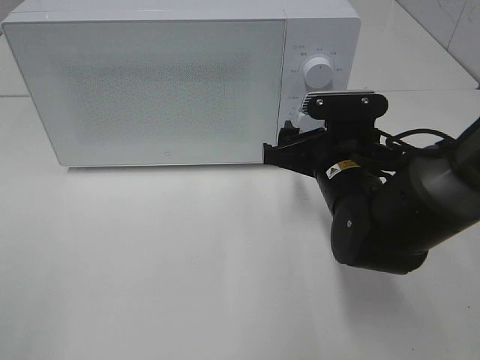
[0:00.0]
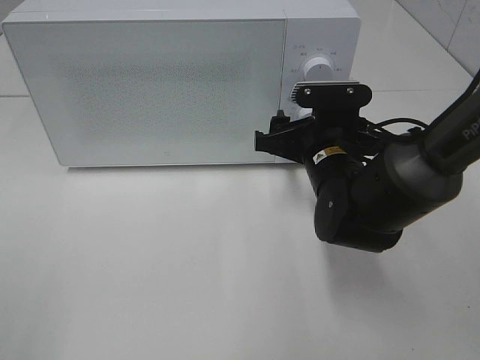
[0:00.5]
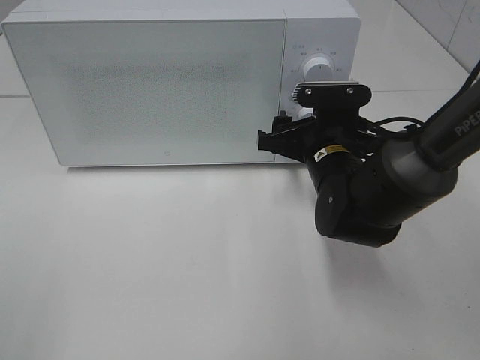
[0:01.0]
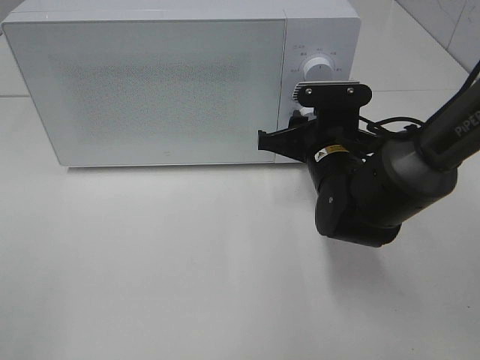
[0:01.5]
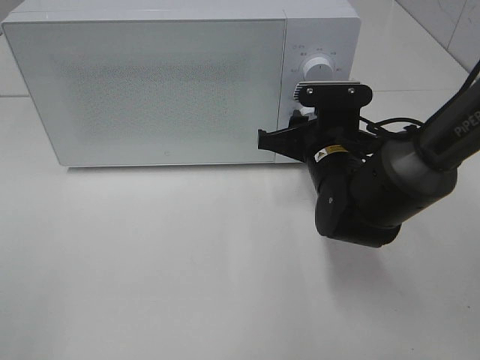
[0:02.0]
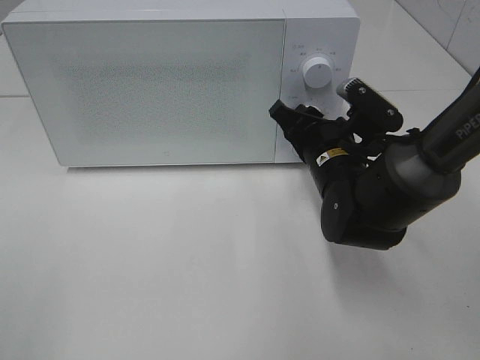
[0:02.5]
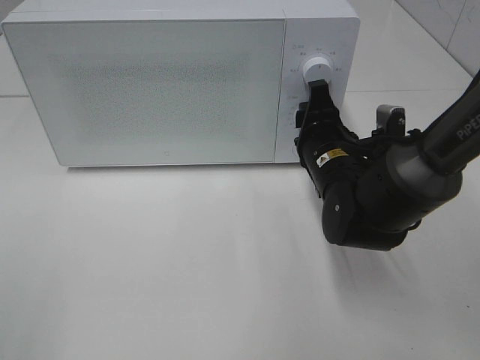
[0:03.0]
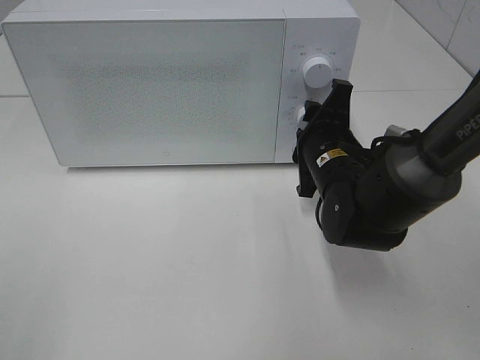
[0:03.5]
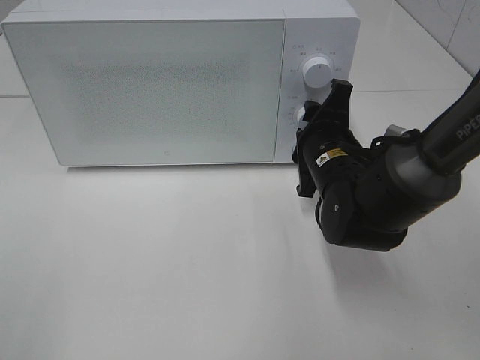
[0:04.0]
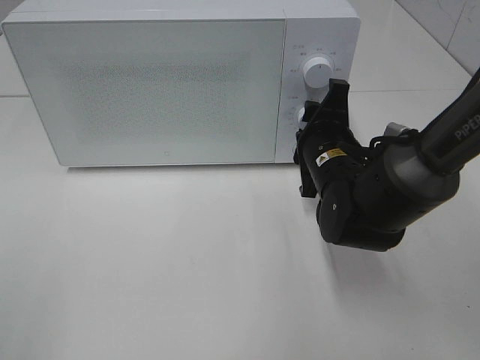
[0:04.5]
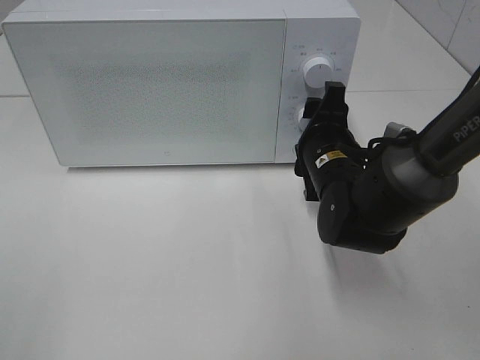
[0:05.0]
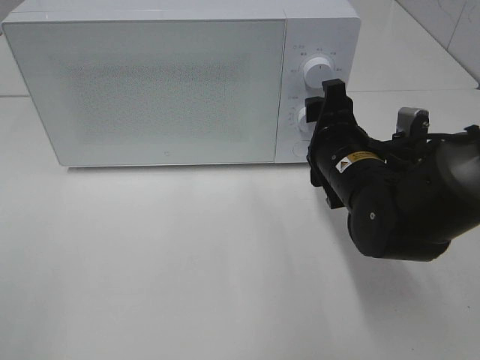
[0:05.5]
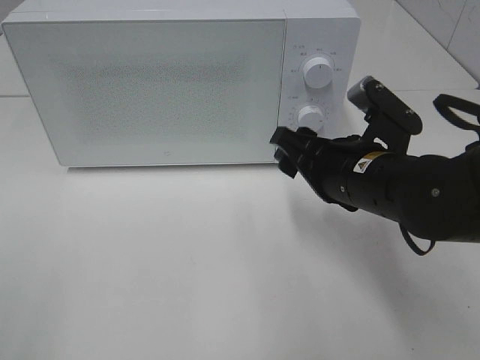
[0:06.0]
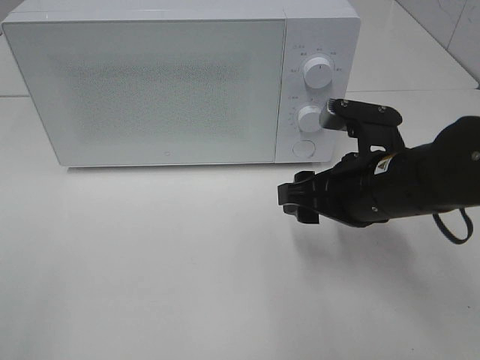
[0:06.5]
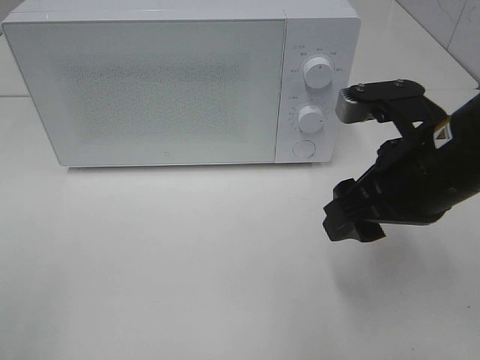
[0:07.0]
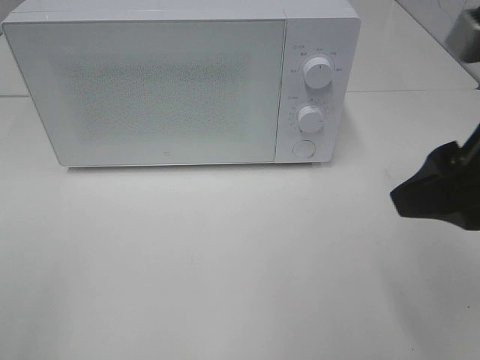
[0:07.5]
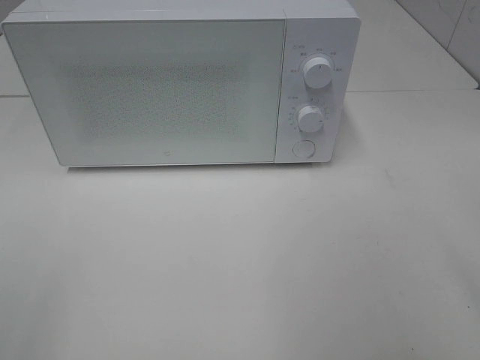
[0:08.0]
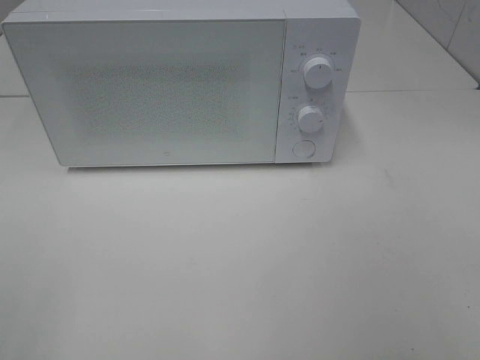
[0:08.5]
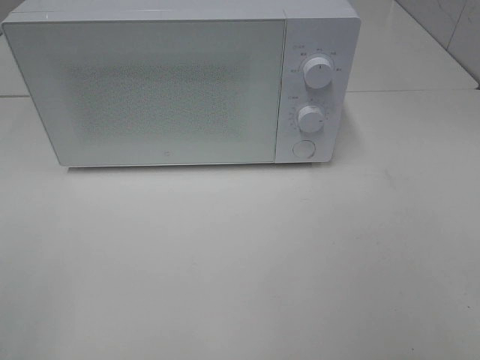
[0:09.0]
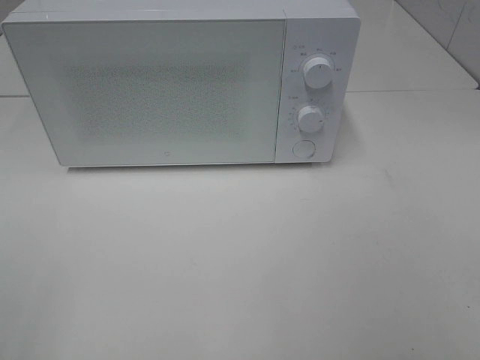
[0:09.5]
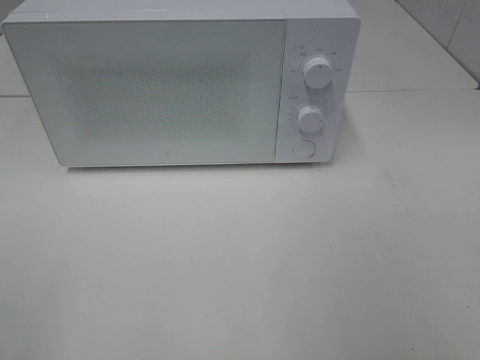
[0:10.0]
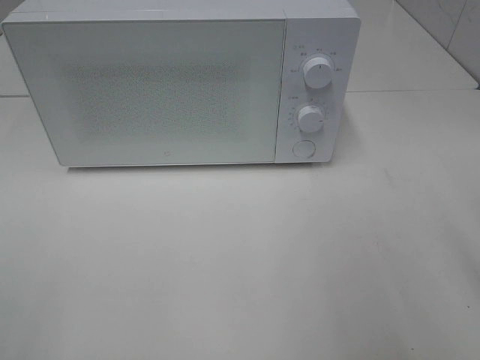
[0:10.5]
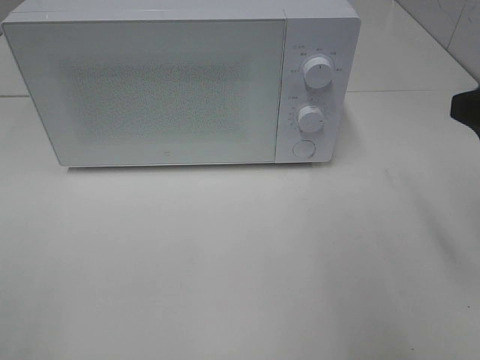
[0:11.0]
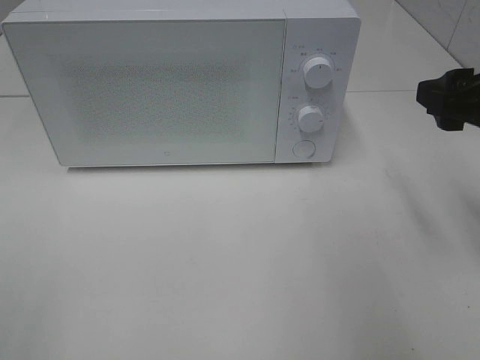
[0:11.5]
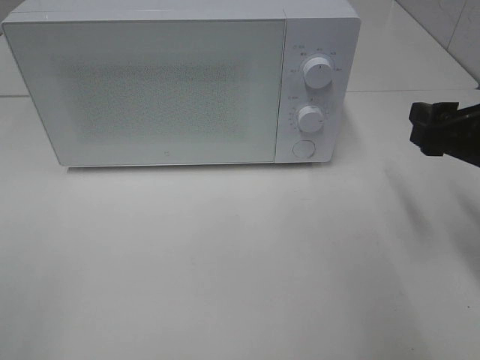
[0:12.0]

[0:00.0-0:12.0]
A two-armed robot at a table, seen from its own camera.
Task of the whole recording: Heat the burger.
Step, 0:00.0 to 0:04.5: Right hand: twist timer button.
0:00.0 to 0:02.0: The right gripper closes.
0:04.0 to 0:06.0: The right gripper shifts approximately 5 cm backward.
0:06.0 to 0:08.0: The right gripper is displaced upward, backward and to the right by some 30 cm.
0:10.0 to 0:12.0: The right gripper is displaced forward and downward by approximately 20 cm.

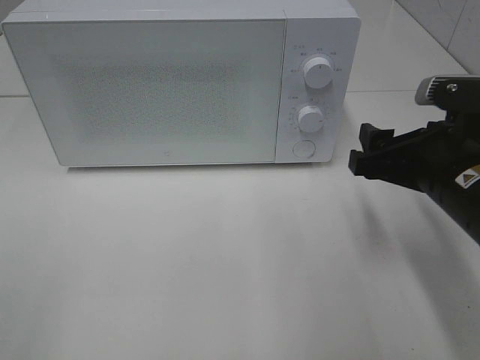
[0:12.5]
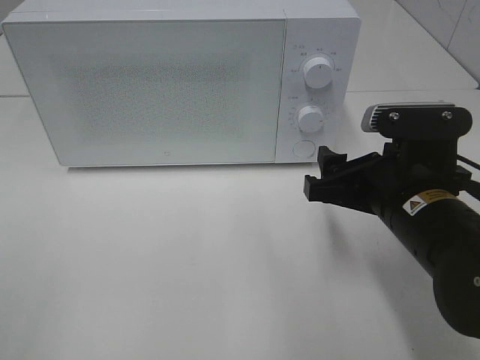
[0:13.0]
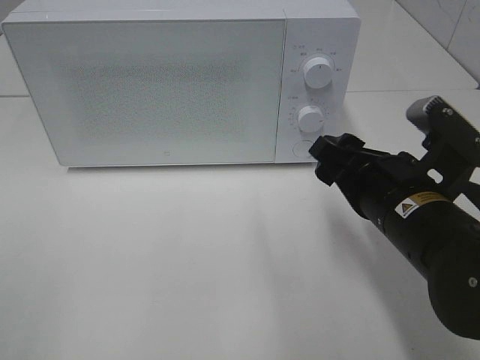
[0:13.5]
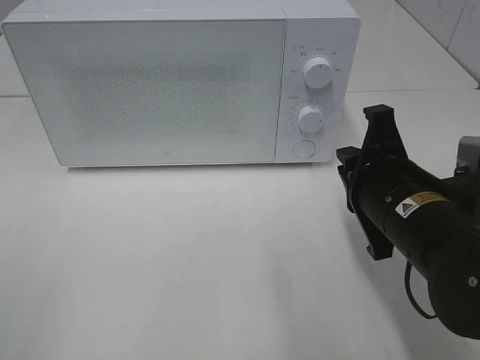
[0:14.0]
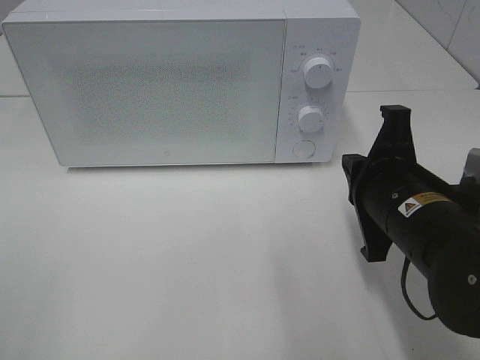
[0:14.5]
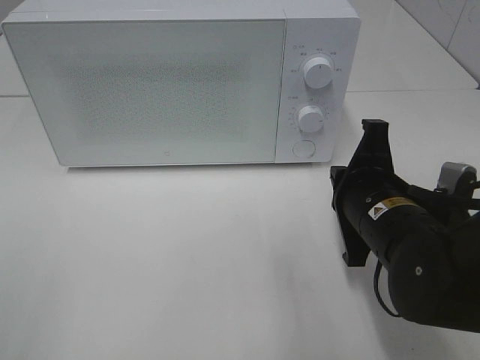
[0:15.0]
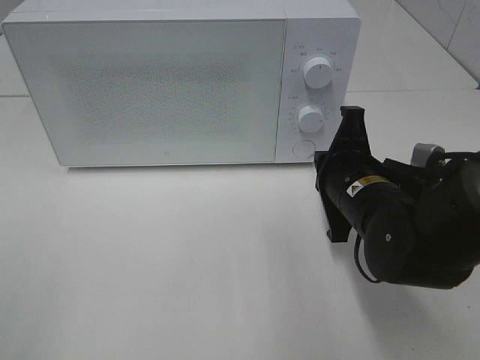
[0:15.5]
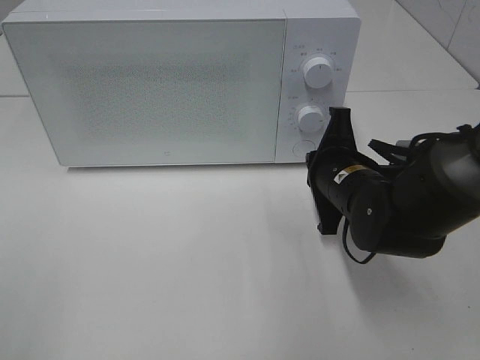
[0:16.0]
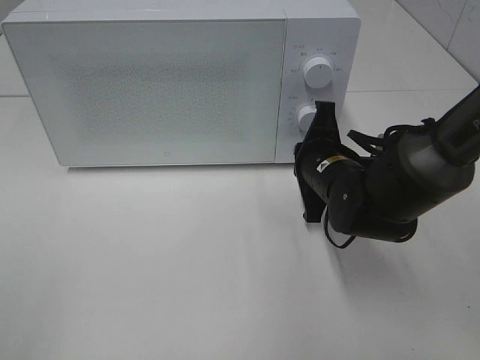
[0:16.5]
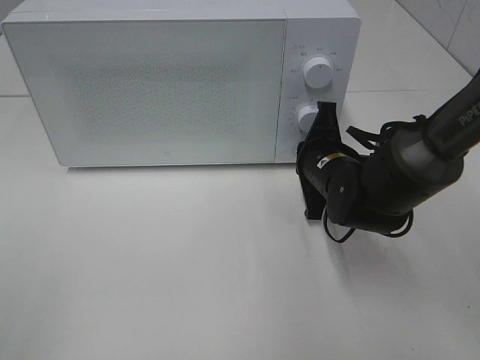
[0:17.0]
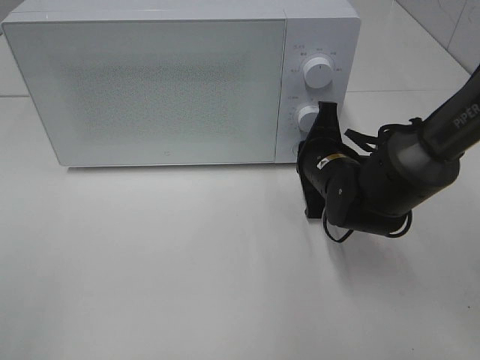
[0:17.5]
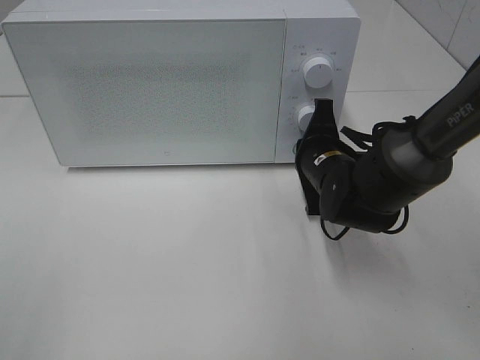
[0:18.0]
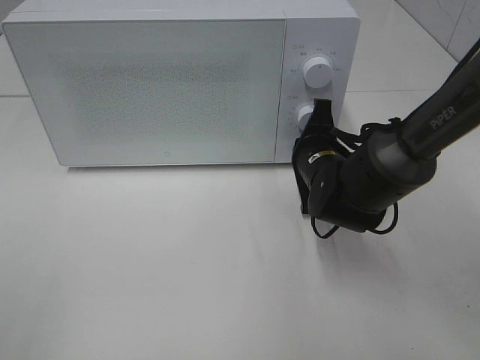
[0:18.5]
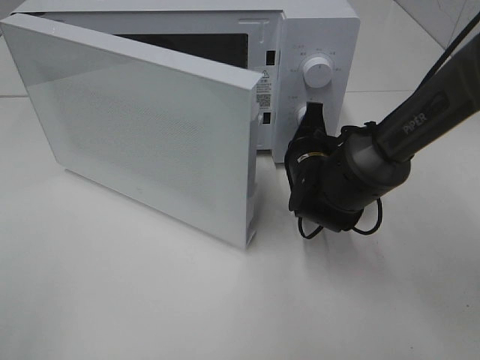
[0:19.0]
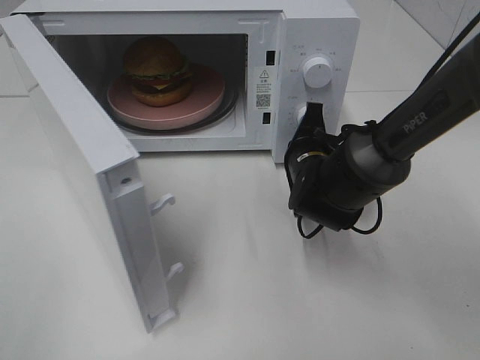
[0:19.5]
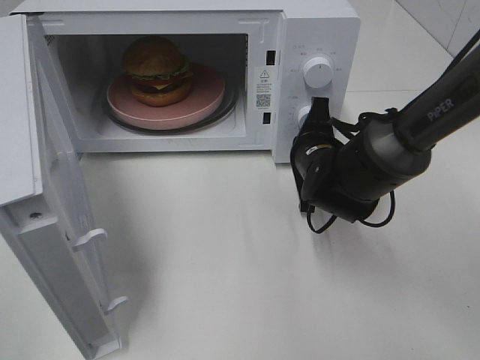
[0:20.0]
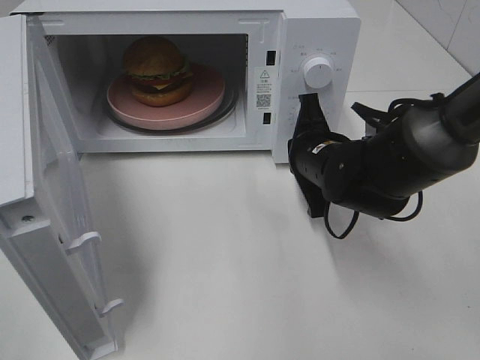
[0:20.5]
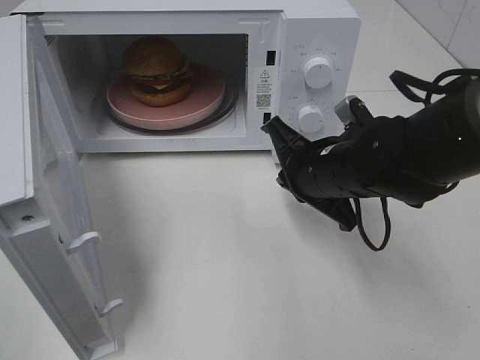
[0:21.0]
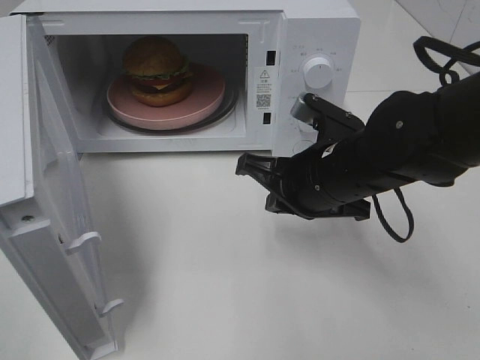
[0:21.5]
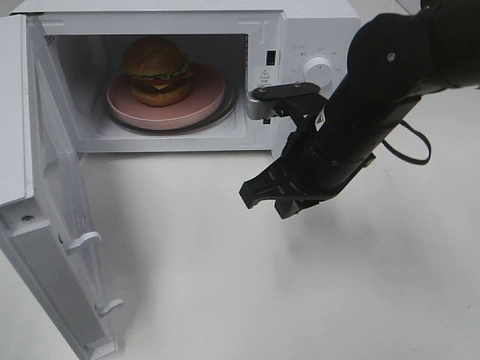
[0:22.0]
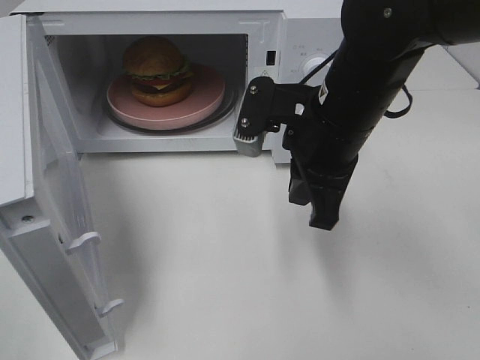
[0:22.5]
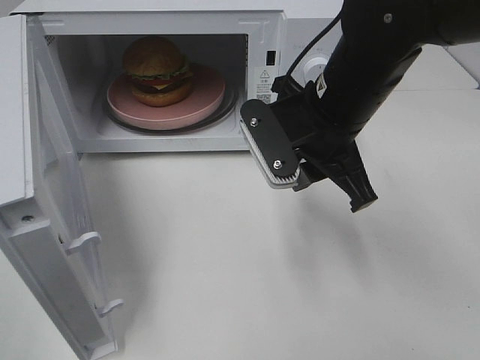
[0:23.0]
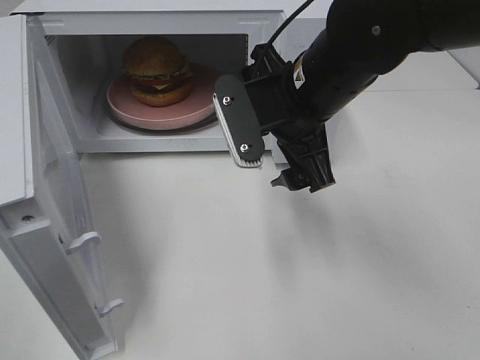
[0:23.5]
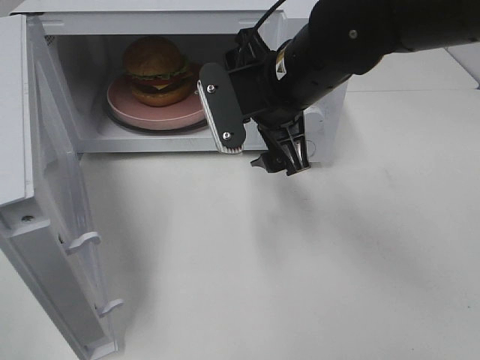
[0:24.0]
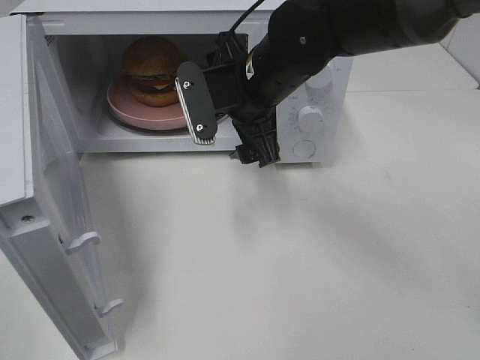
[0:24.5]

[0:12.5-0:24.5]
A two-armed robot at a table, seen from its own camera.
Task of the whole recording: Heat the burger.
Step, 0:12.5 to 0:20.0: Right hand: press the switch.
0:12.5 to 0:14.5: The right gripper changes place by approximately 5 cm, and closes up.
0:14.5 to 0:16.5: The right gripper travels forward and downward by about 15 cm.
0:16.5 to 0:18.5: There are only small adjustments of the grippers.
0:20.5 to 0:22.5: The right gripper shifts some 10 cm upward.
0:22.5 to 0:24.5: The right gripper is displaced forward and to the left by some 10 cm, and opens its fingers.

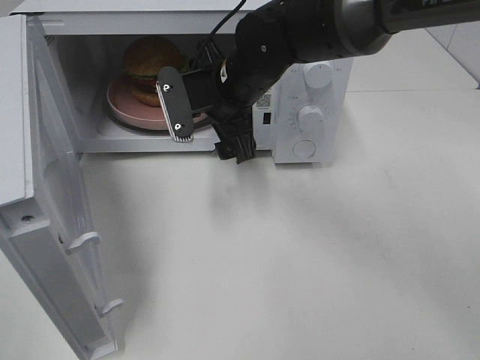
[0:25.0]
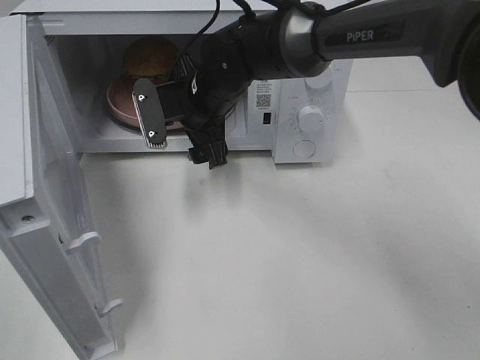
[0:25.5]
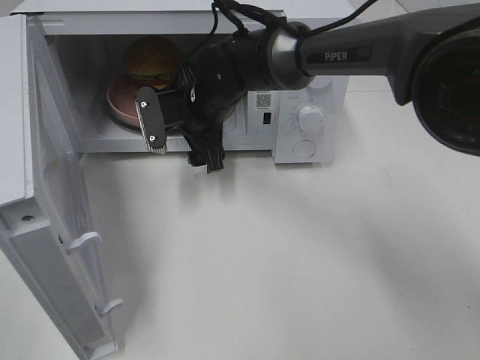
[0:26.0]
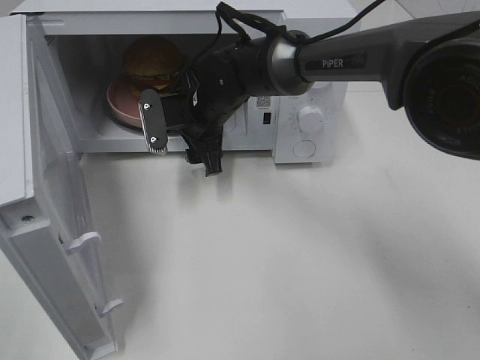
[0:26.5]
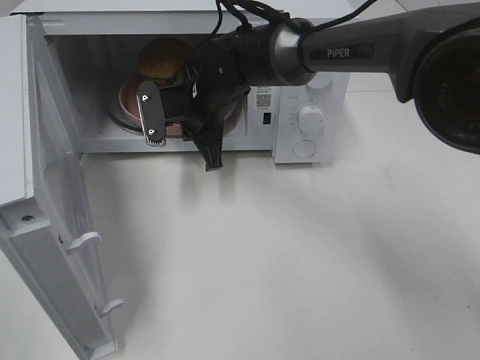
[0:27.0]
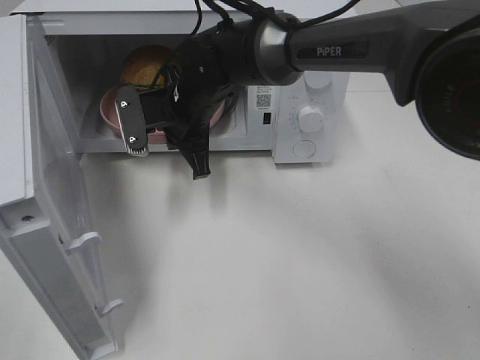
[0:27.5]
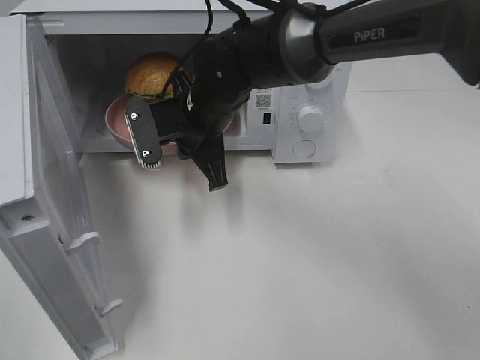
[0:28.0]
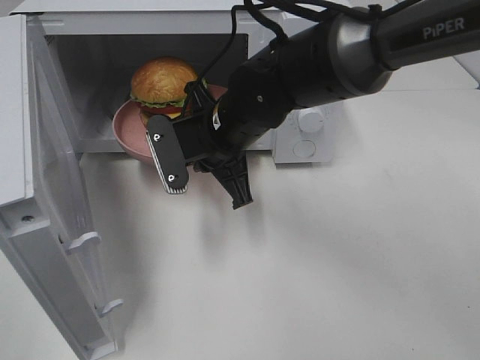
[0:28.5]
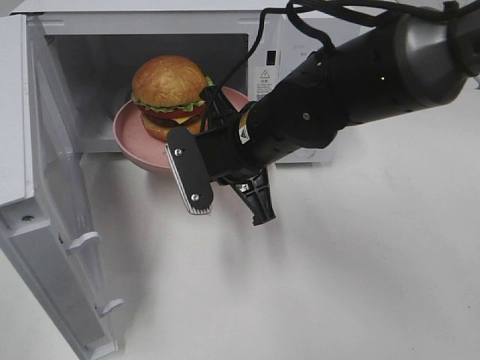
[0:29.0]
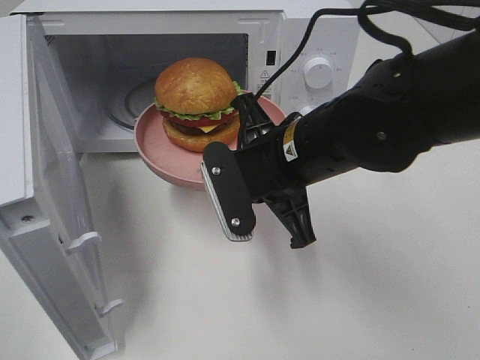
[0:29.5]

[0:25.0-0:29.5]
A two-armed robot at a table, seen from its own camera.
Task of the whole recording: Heat the burger.
0:25.0 to 0:27.0: The right gripper shifts by about 5 cm, and closes.
0:27.0 to 0:29.5: The right gripper heads backward and to the right, covering some 20 cm.
